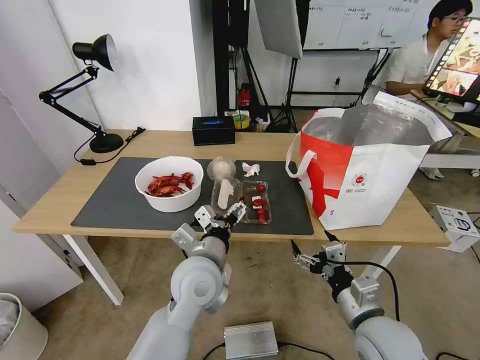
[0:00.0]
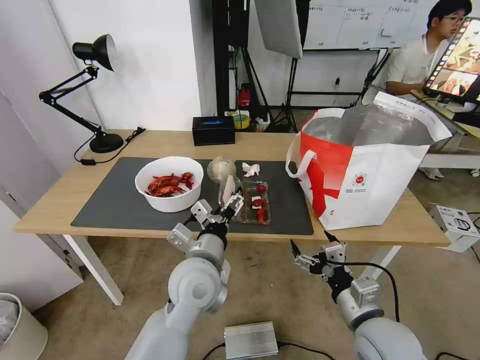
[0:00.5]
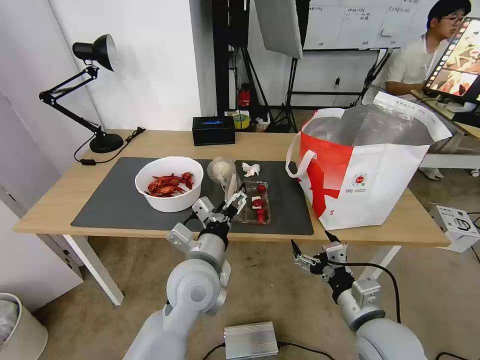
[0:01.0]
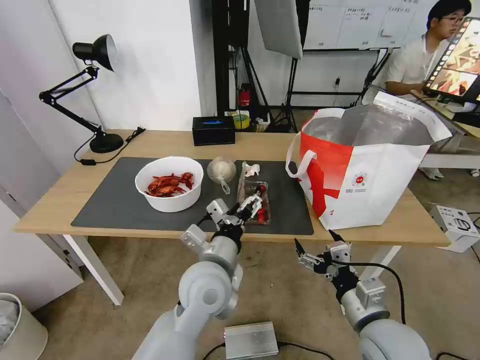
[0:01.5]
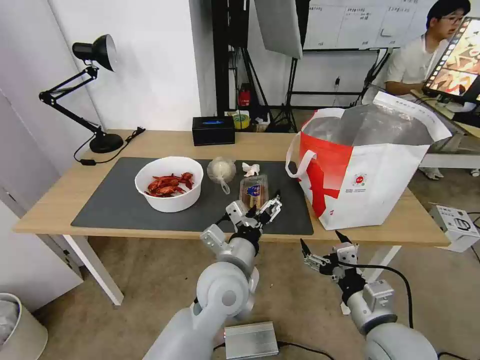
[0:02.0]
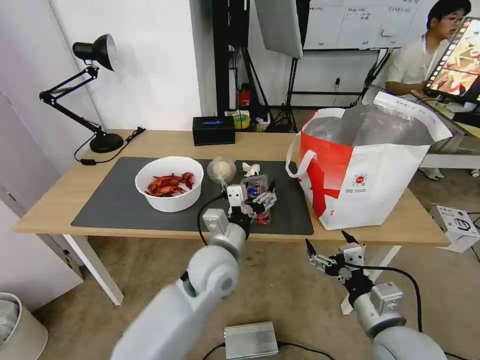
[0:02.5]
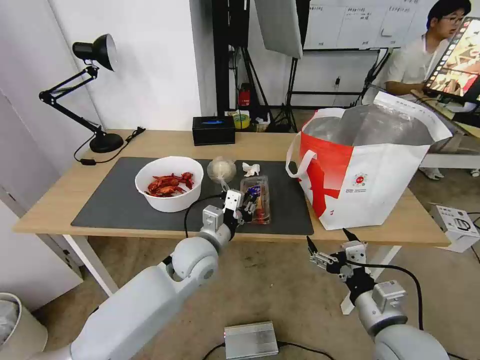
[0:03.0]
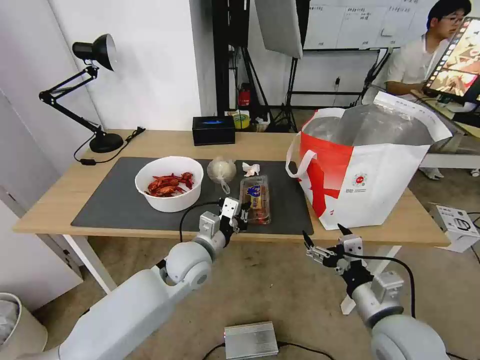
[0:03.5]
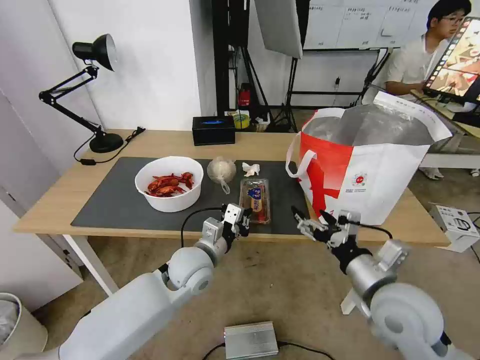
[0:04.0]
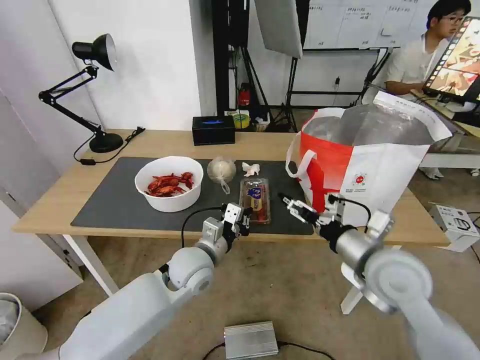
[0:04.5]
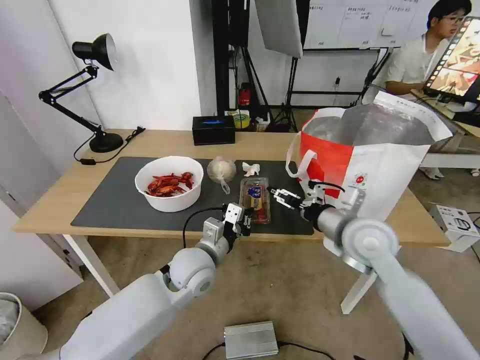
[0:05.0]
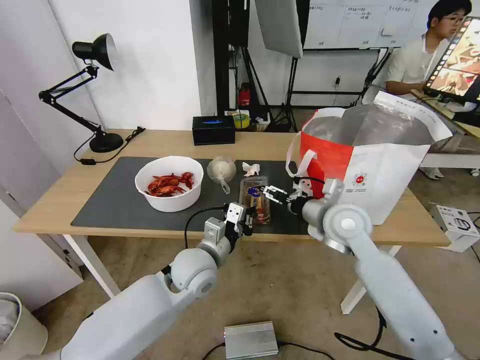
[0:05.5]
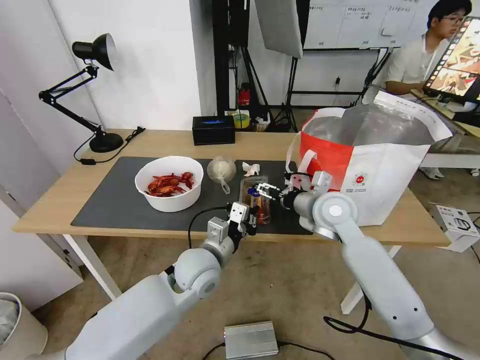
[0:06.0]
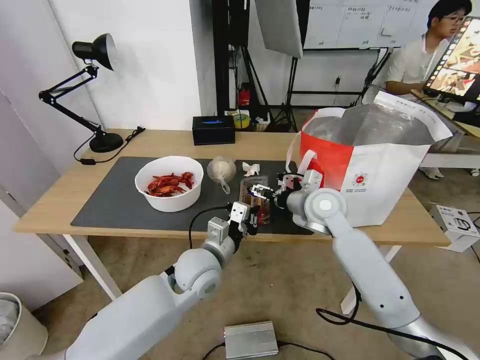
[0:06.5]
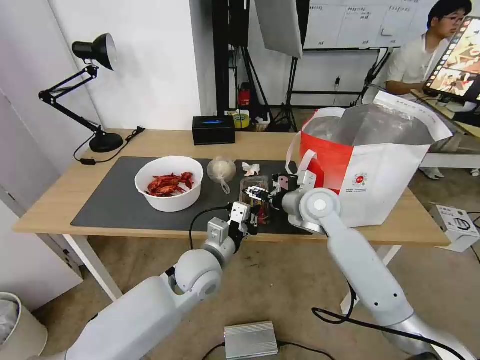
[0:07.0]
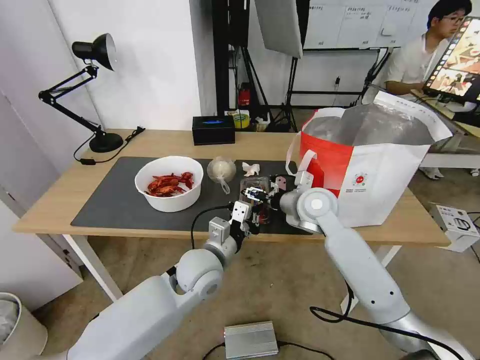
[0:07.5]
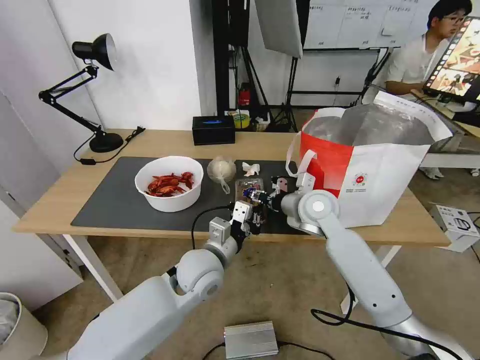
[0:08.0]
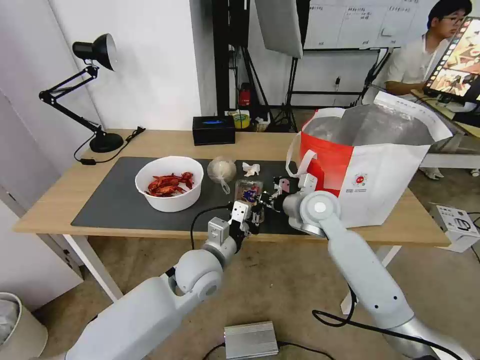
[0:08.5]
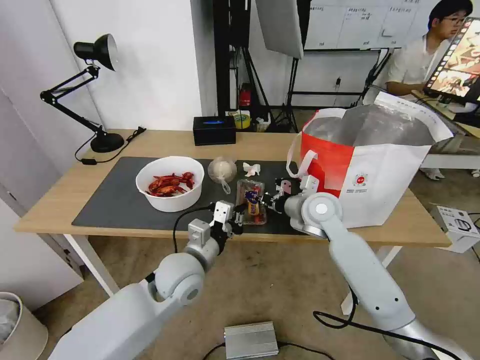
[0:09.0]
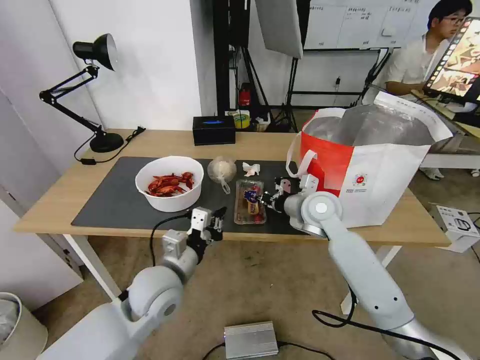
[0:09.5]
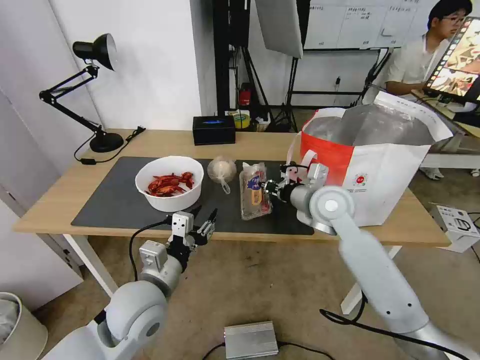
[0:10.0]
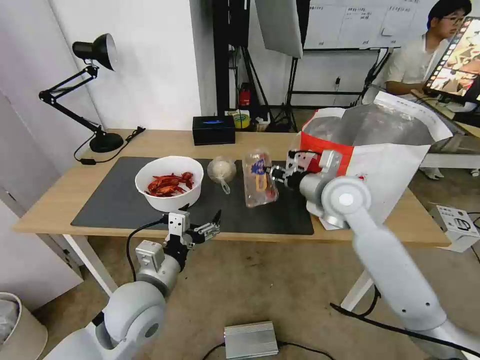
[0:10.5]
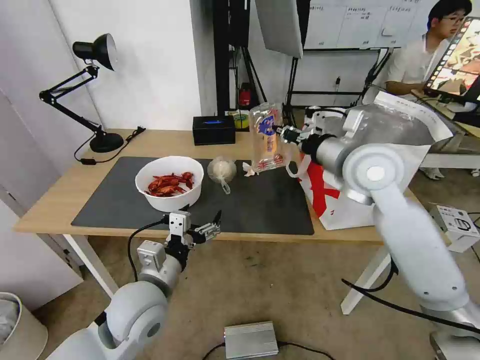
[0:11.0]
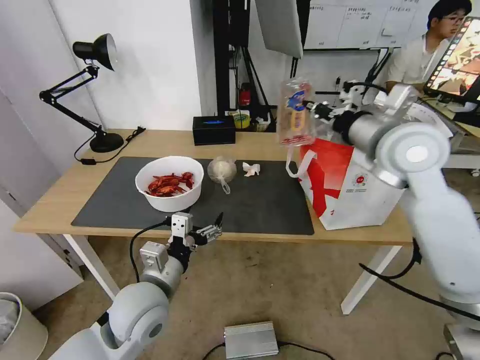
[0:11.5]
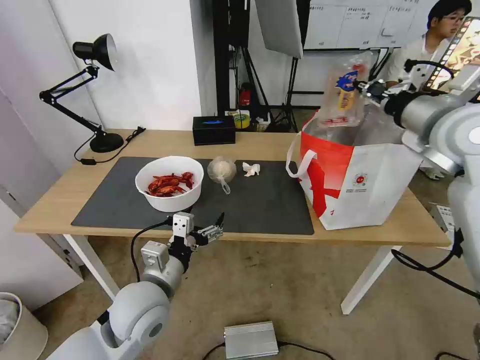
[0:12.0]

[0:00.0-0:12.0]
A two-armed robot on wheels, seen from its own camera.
Task of the whole recording: Pick up the trash from the table and place it into the takeout bag.
0:00.0 to 0:02.0: The grippers stay close to where they were, moving slightly.
0:02.0 to 0:04.0: The left gripper moves to the left, forward and downward, approximately 10 cm, and closes its fingers. The right gripper goes roughly 5 cm upward.
0:04.0 to 0:06.0: The right gripper goes about 20 cm forward.
0:06.0 to 0:08.0: The right gripper closes.
0:08.0 to 0:10.0: The left gripper shifts approximately 15 cm to the left and backward, and opens its fingers. Meanwhile the right gripper closes its fingers.
0:10.0 to 0:12.0: The left gripper opens. The right gripper goes some 25 cm upward and to the right.

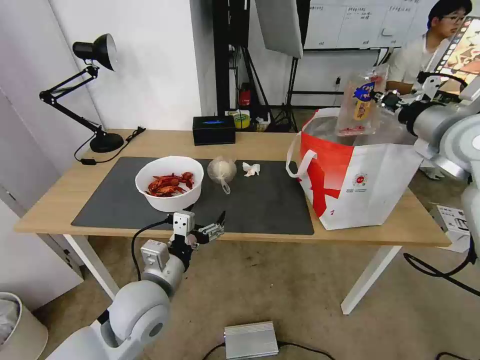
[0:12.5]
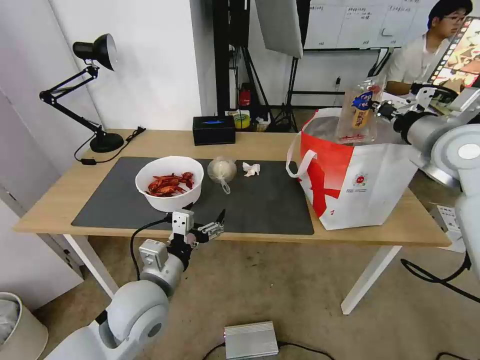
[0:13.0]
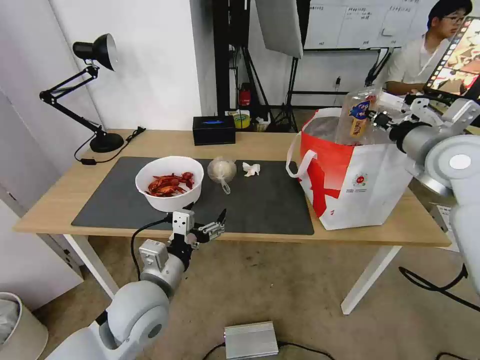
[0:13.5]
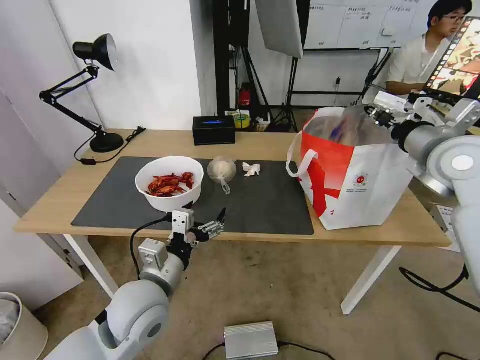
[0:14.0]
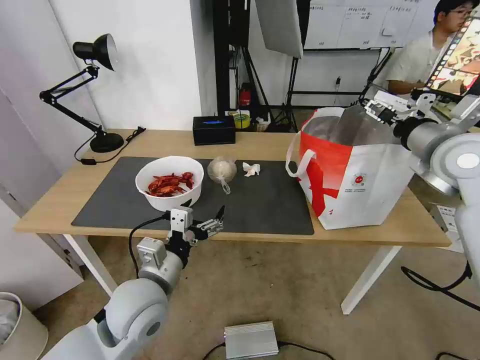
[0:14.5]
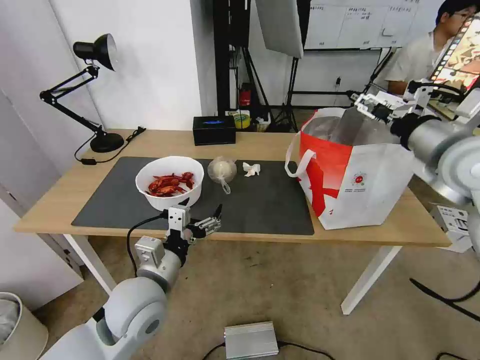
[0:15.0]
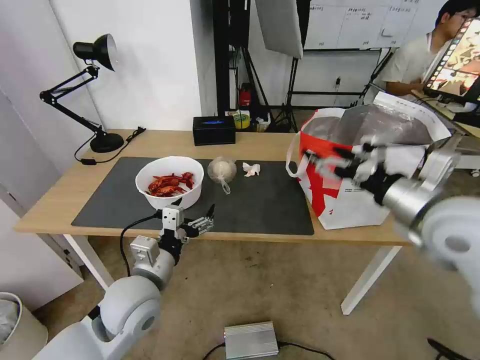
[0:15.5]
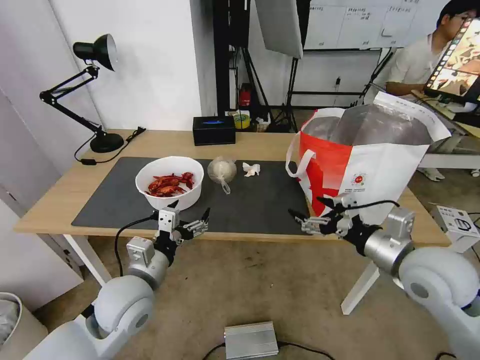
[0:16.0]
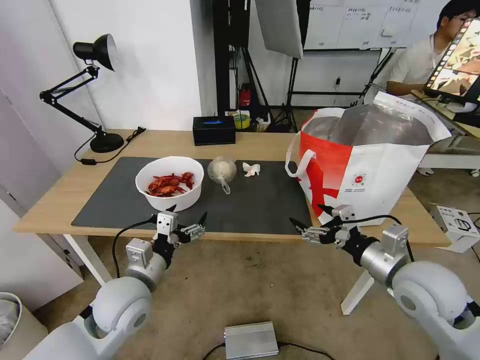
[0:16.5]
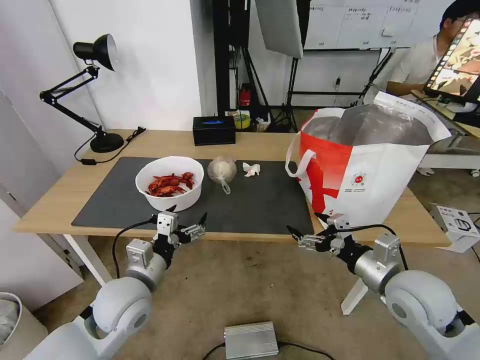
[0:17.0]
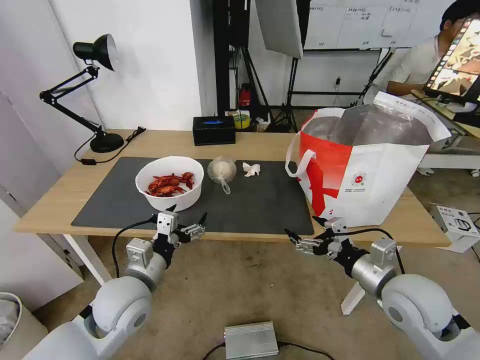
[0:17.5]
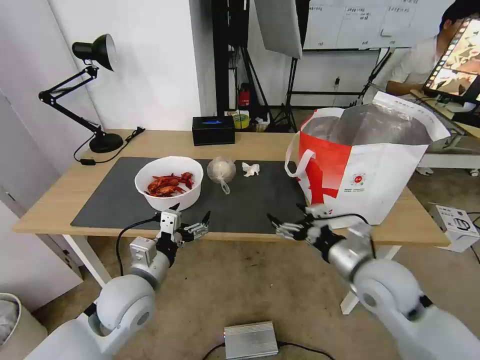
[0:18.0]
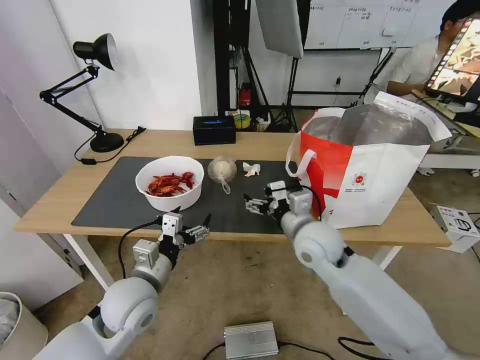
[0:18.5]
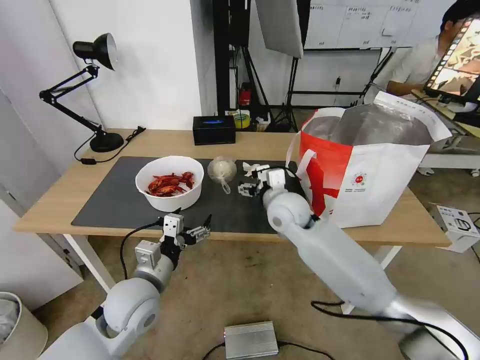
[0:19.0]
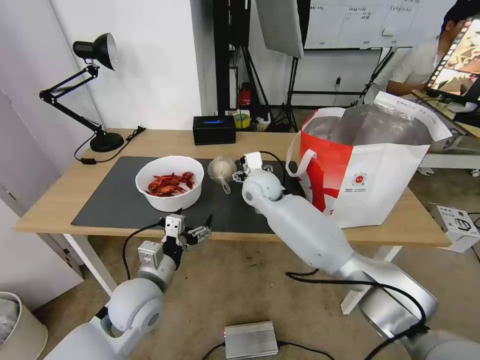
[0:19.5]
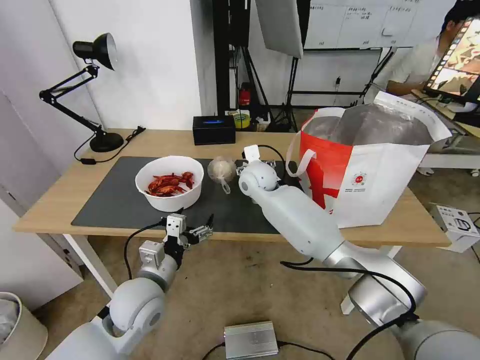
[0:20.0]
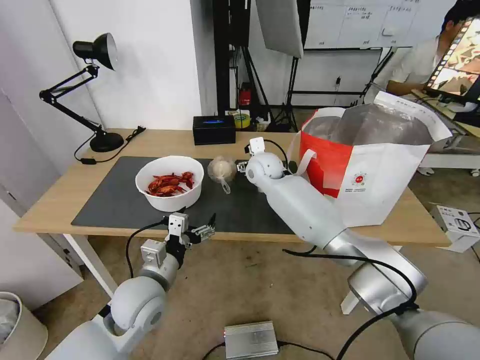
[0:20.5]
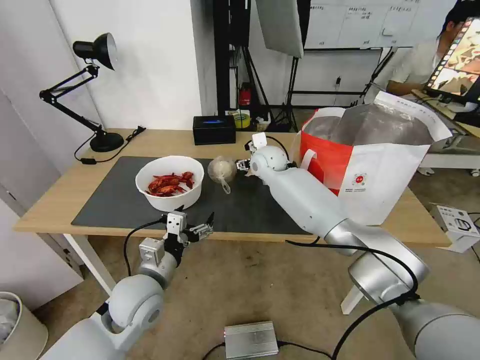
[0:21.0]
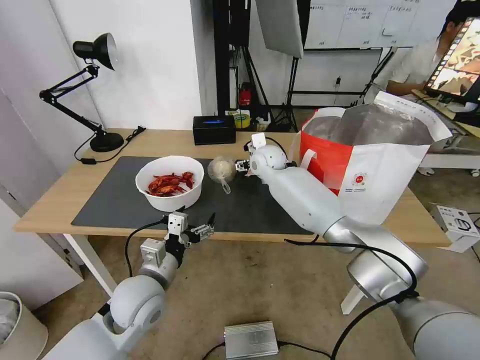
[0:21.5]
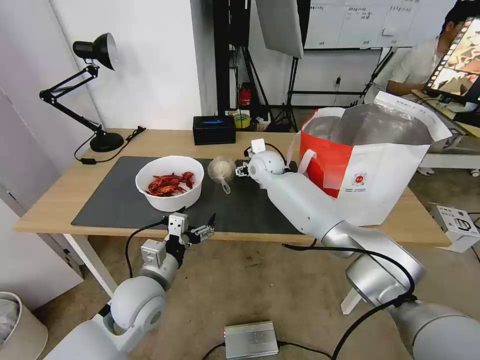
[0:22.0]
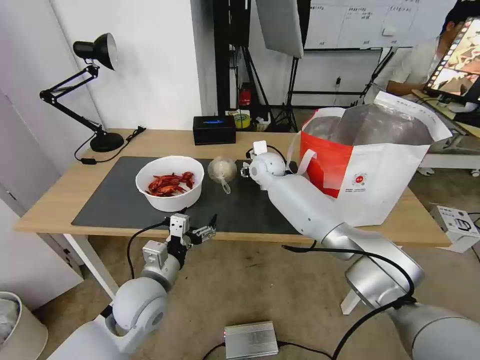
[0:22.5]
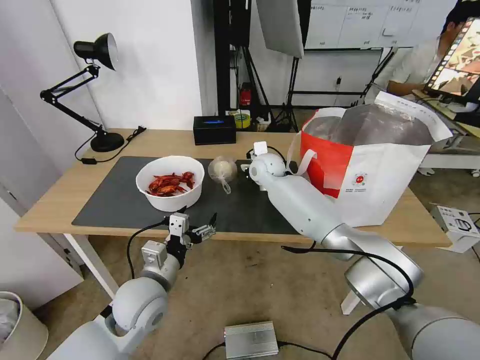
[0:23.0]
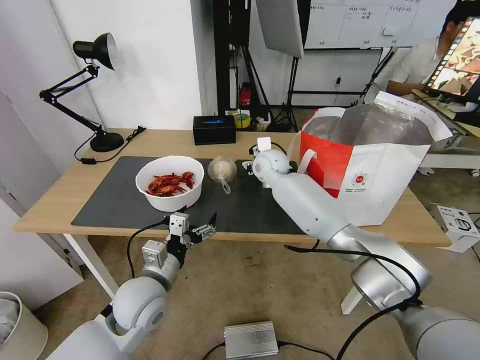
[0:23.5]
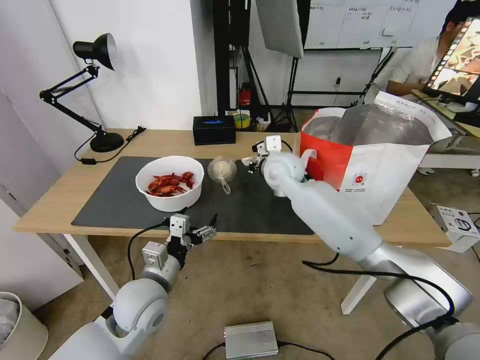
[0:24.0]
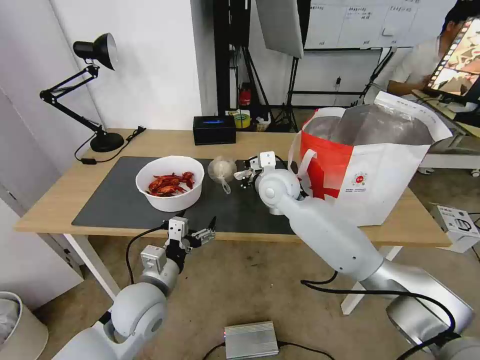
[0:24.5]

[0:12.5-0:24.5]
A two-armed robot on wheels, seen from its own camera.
Task of the whole recording: Pick up the trash from the table and place it into the takeout bag.
0:12.5 to 0:14.5: The right gripper opens.
0:14.5 to 0:16.5: The right gripper is displaced downward and backward by about 25 cm. Meanwhile the left gripper ends up some 5 cm from where it was.
0:16.5 to 0:18.5: The right gripper goes some 20 cm to the left and forward.
0:18.5 to 0:20.5: The right gripper goes about 25 cm forward and to the left.
0:20.5 to 0:22.5: The right gripper closes up.
0:22.5 to 0:24.5: The right gripper heads backward, covering about 10 cm, and closes.

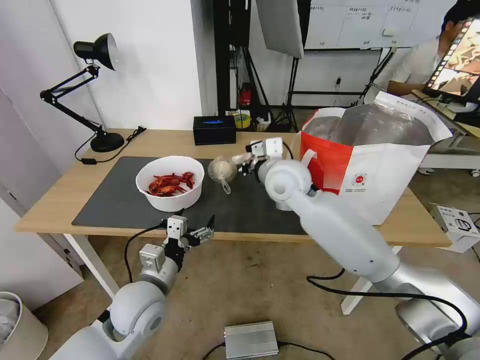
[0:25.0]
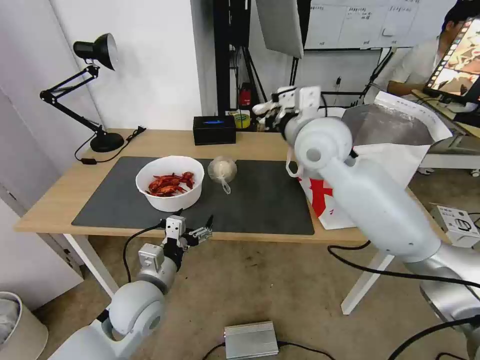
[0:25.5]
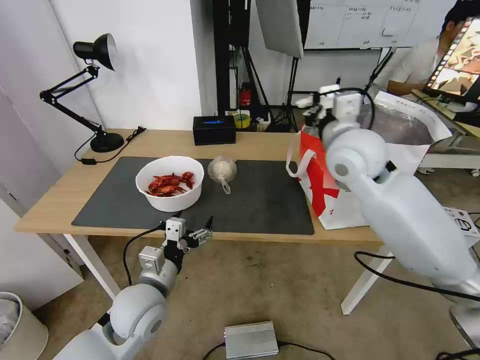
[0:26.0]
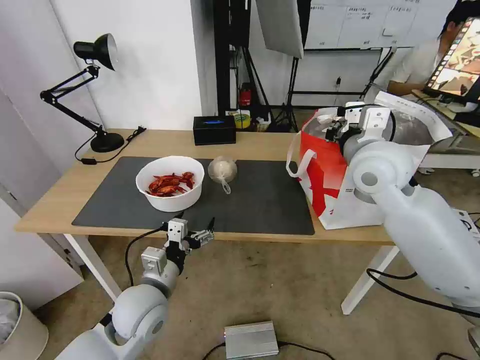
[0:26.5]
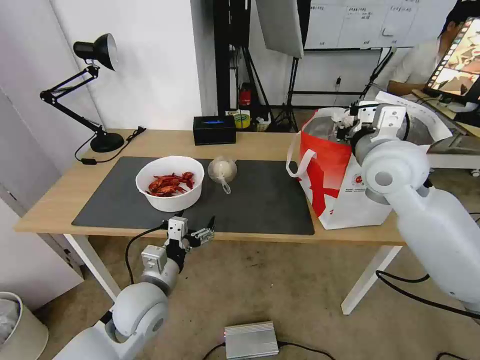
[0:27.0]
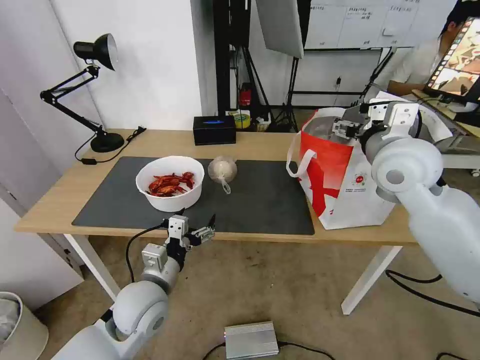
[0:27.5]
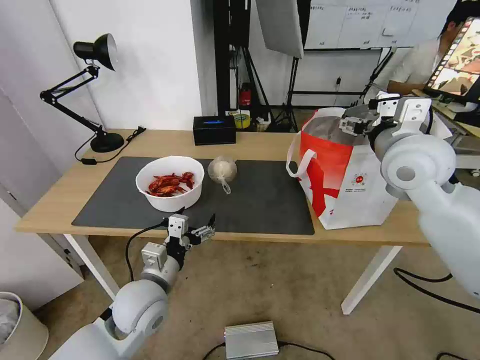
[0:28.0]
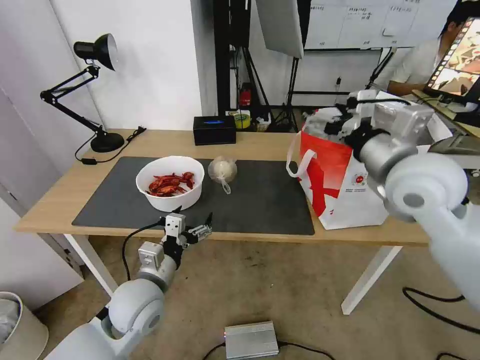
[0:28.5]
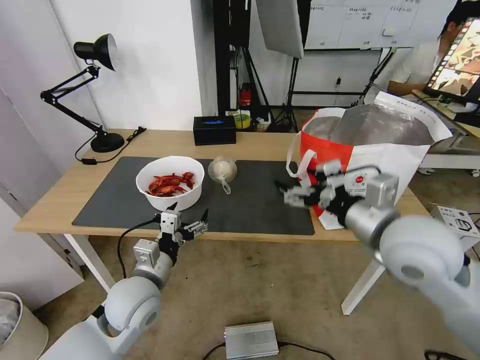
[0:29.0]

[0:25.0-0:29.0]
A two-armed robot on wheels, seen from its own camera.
Task of the whole recording: Pick up the trash from the table and place it into the takeout bag.
0:25.0 to 0:27.0: The right gripper shifts some 15 cm to the right and upward, and opens.
0:27.0 to 0:29.0: The right gripper shifts approximately 10 cm backward, and opens.
